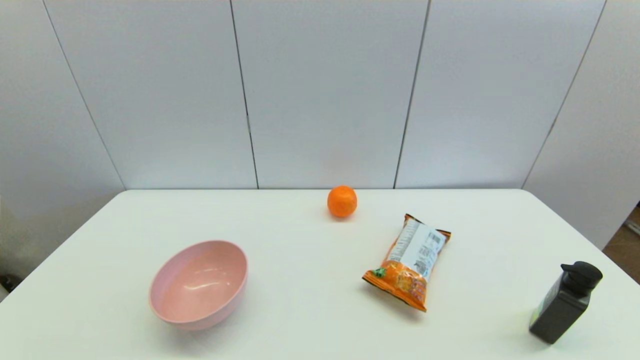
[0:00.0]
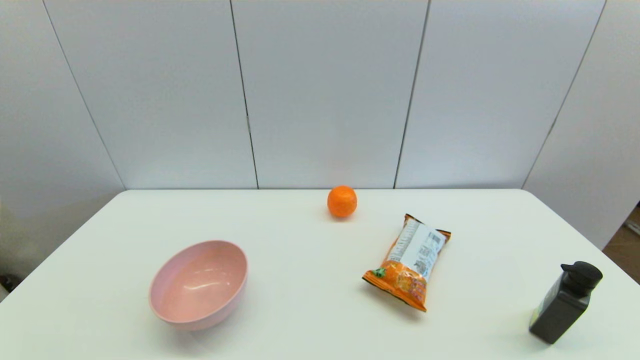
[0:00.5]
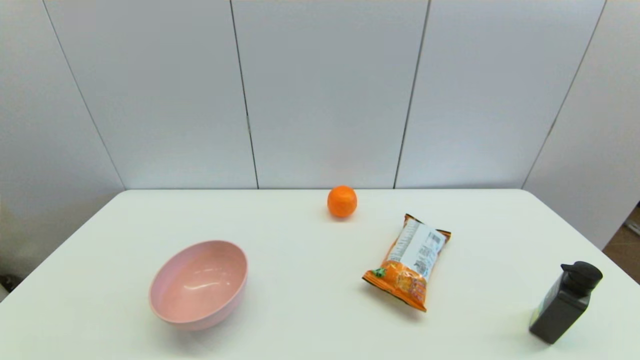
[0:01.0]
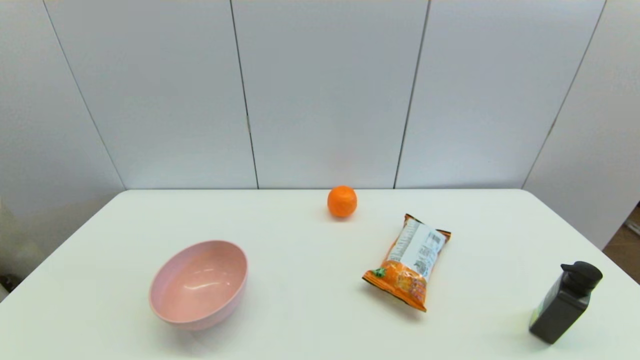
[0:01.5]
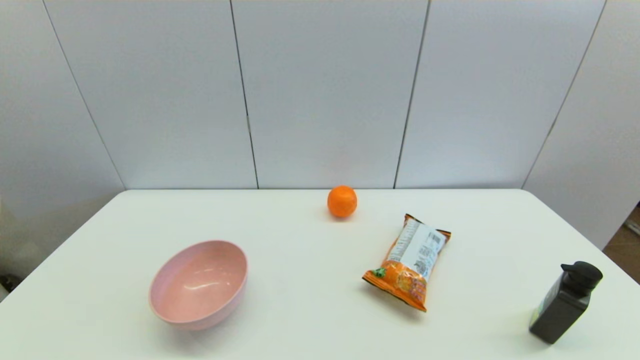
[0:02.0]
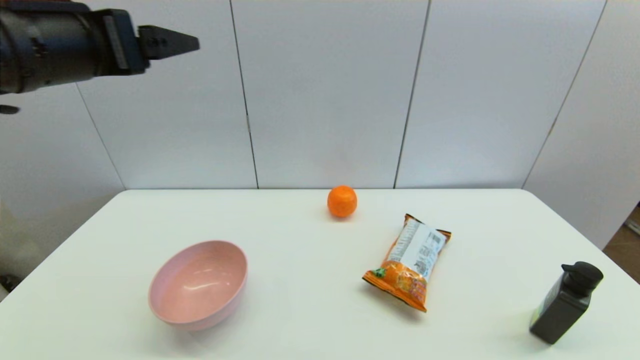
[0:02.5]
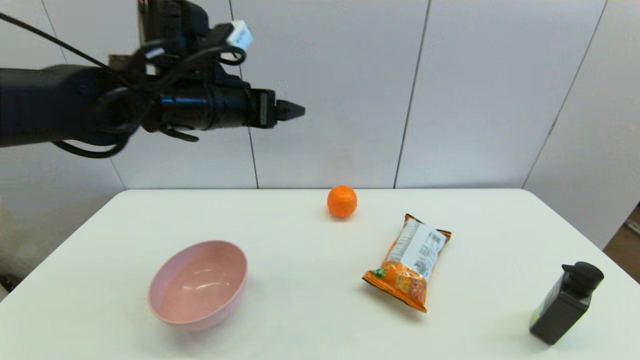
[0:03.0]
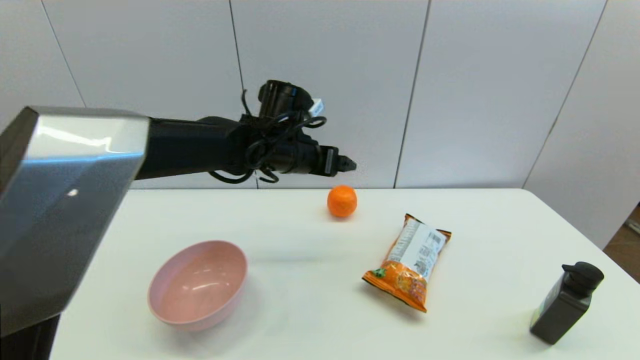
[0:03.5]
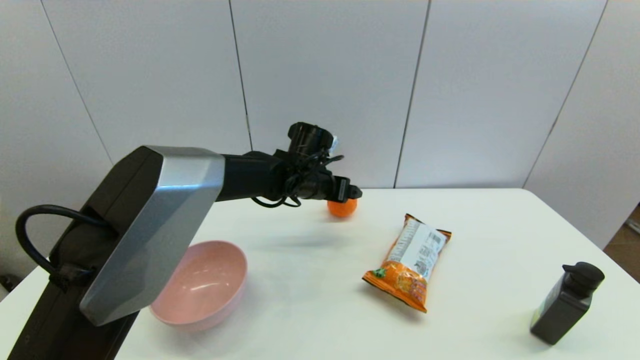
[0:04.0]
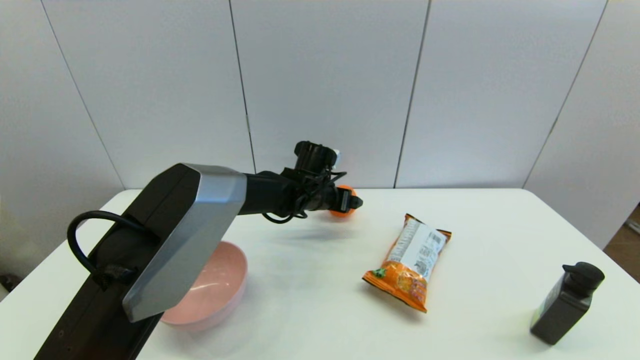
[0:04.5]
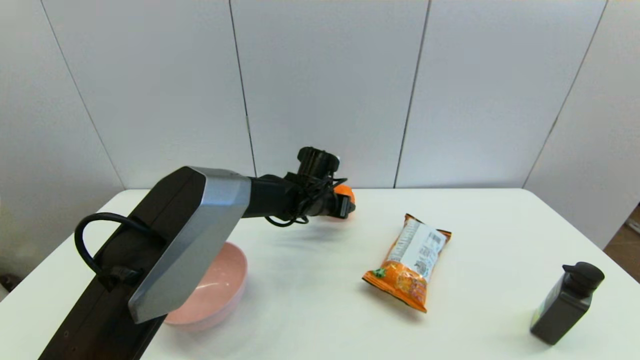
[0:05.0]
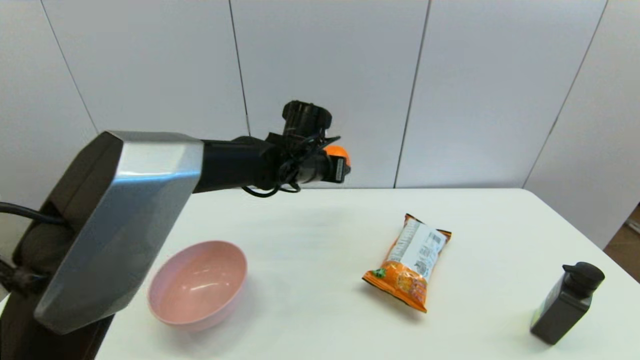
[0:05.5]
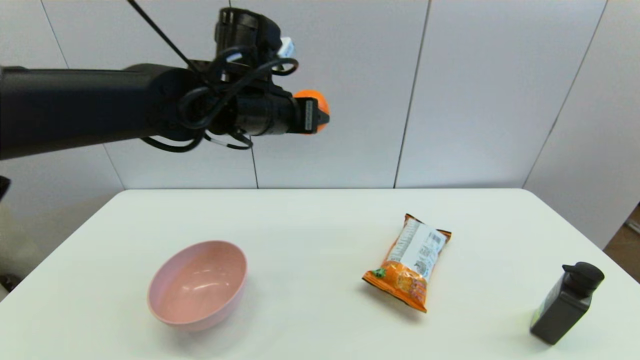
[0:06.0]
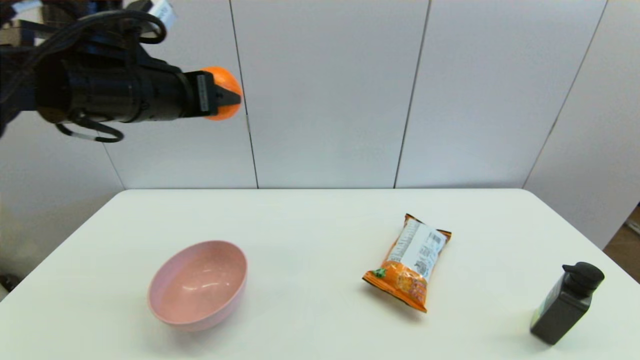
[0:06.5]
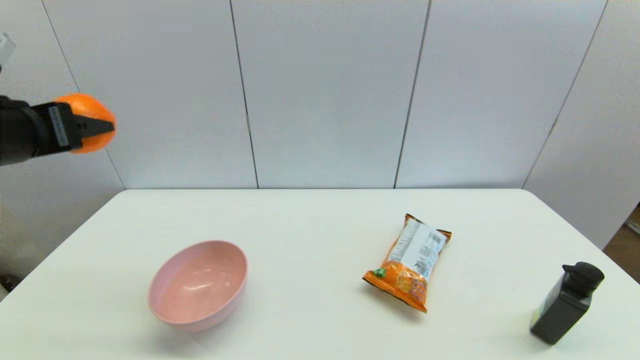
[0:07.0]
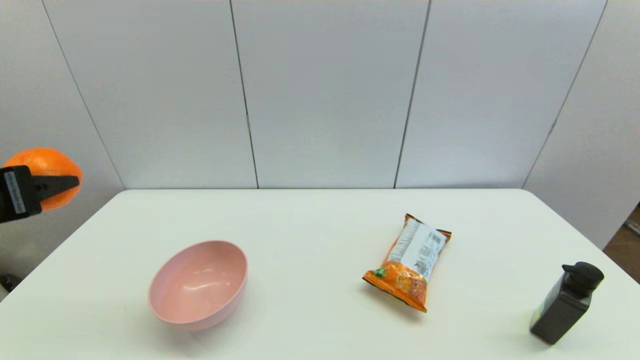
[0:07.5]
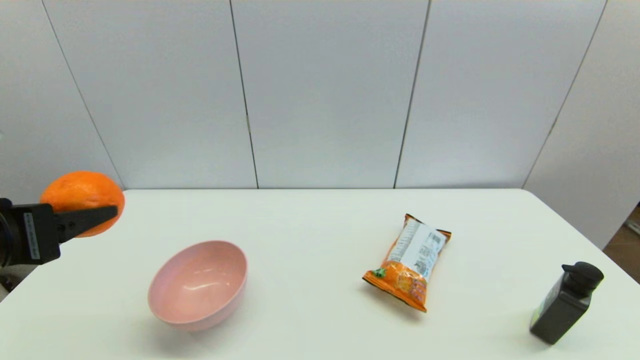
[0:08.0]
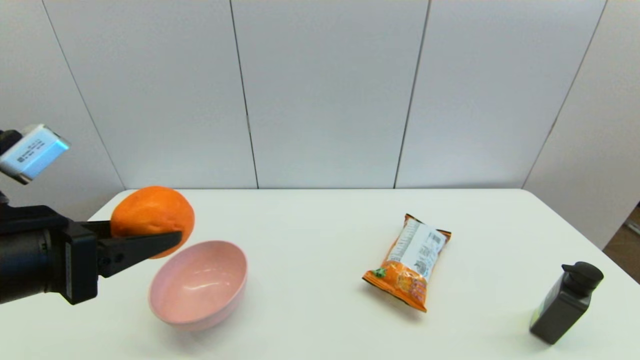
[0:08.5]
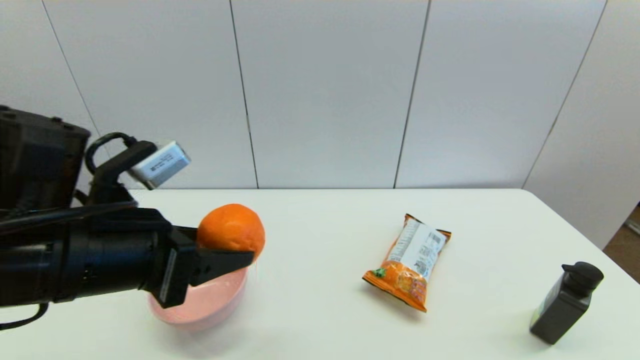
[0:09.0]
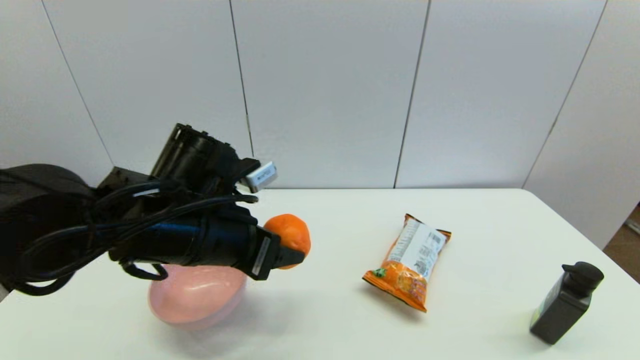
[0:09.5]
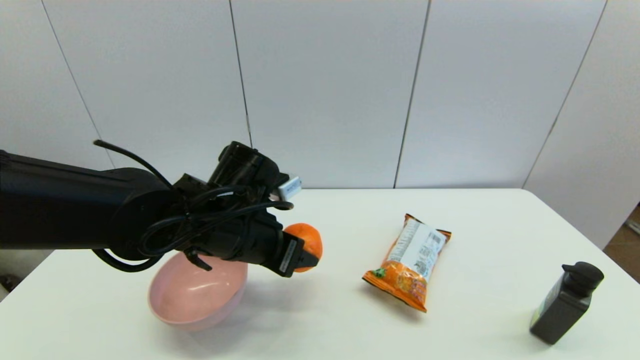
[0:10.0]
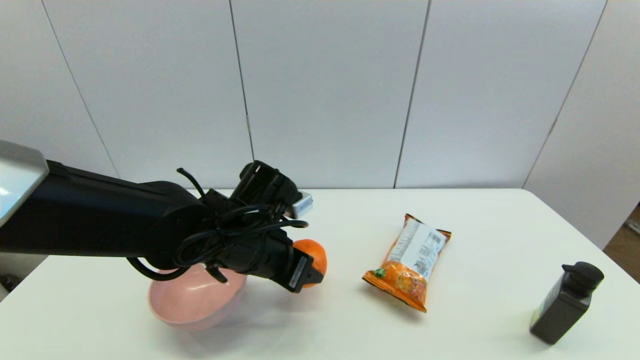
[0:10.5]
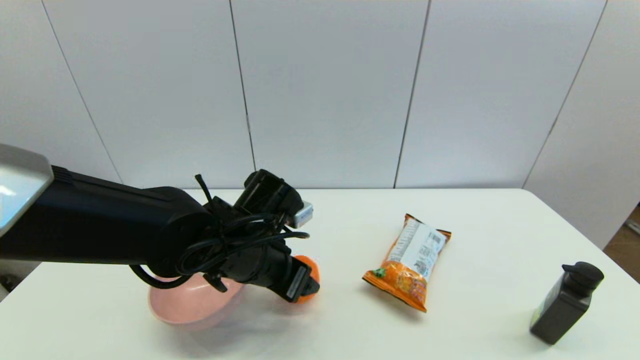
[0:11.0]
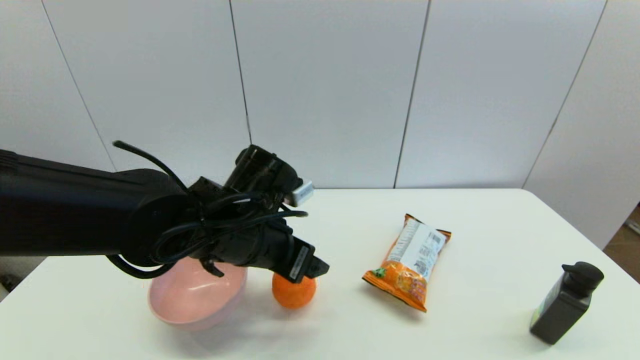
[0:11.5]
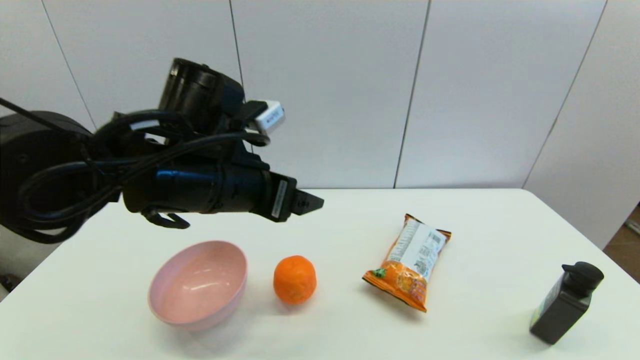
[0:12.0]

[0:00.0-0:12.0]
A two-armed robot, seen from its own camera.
Step, 0:02.5 to 0:05.0: Grasp the orange with left gripper.
Step, 0:05.5 to 0:11.0: Place the orange on the table with left gripper.
0:02.0 to 0:04.0: The left gripper shifts some 50 cm forward, to the right and downward.
0:04.0 to 0:06.0: The left gripper goes roughly 20 cm upward, backward and to the left, and closes.
0:06.0 to 0:08.0: The left gripper is displaced backward and to the left by roughly 30 cm.
0:08.0 to 0:10.0: The left gripper shifts some 25 cm to the right, forward and downward.
0:10.0 to 0:12.0: The left gripper heads upward, covering approximately 10 cm, and opens.

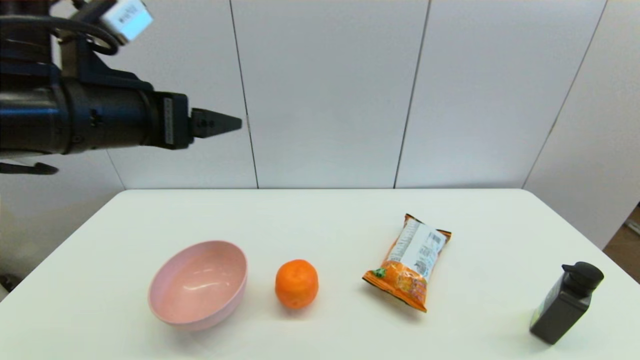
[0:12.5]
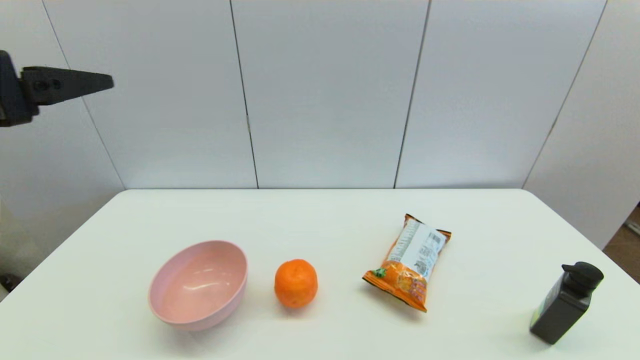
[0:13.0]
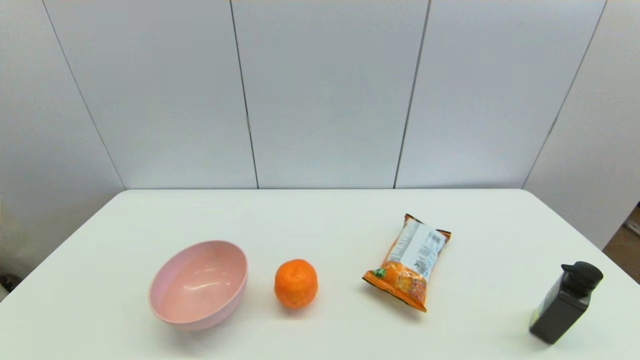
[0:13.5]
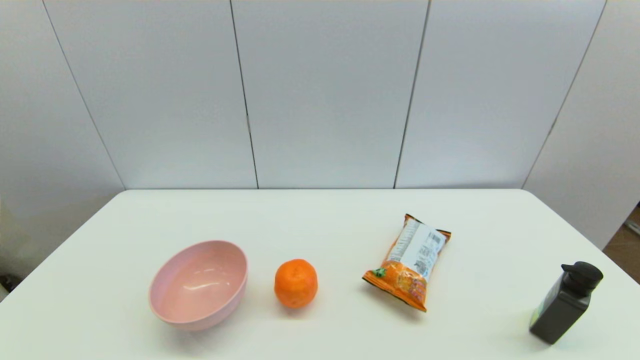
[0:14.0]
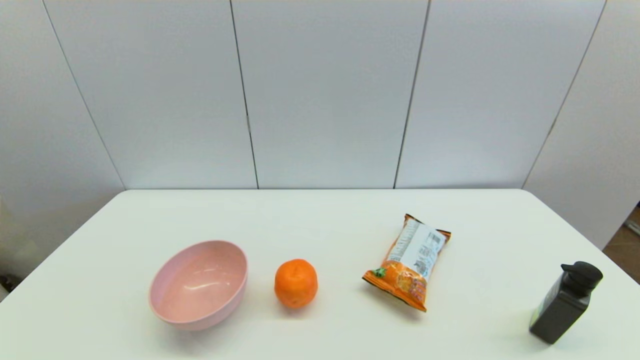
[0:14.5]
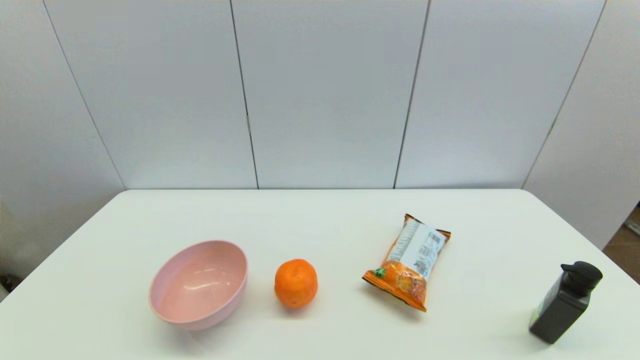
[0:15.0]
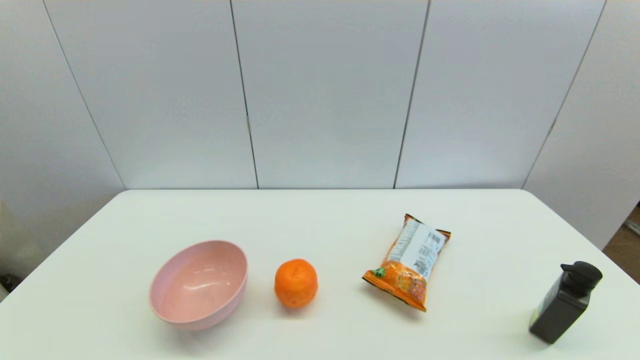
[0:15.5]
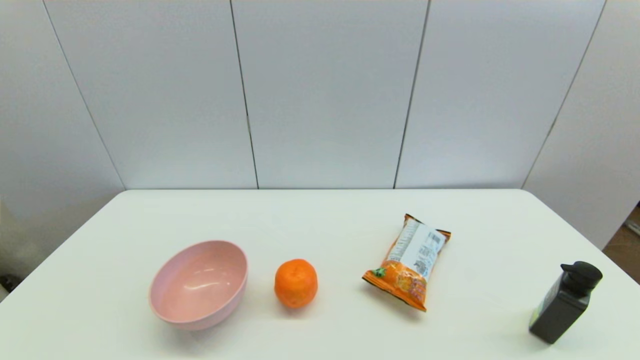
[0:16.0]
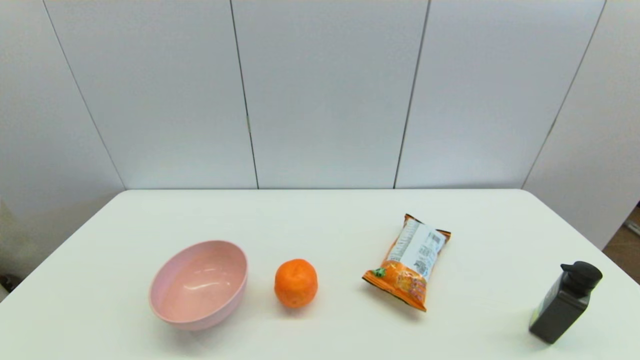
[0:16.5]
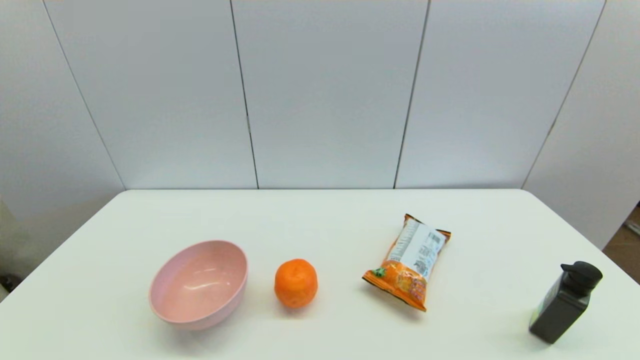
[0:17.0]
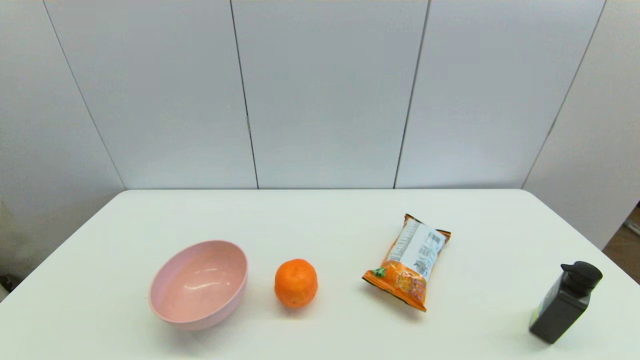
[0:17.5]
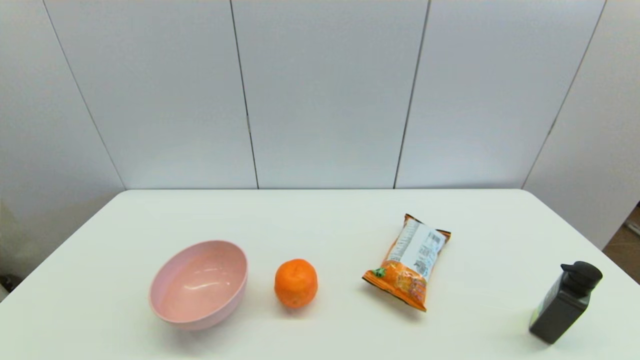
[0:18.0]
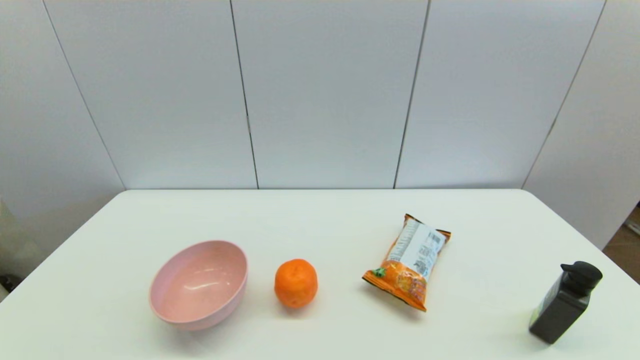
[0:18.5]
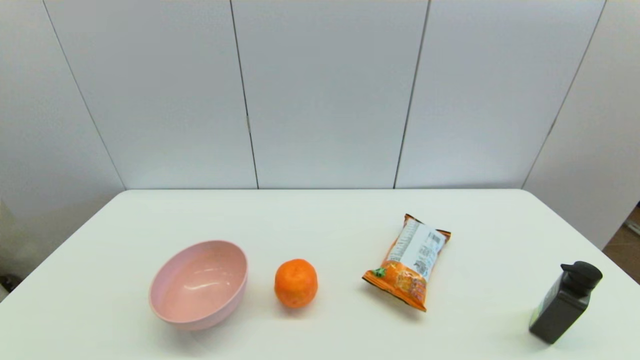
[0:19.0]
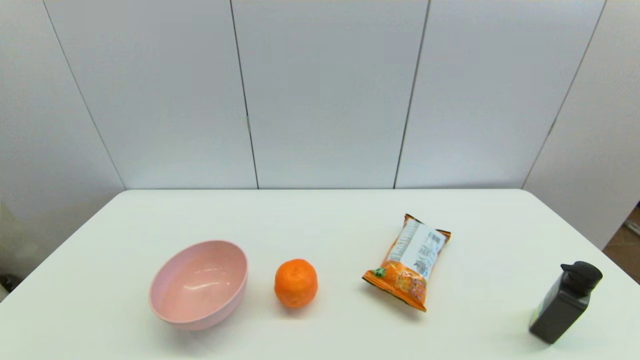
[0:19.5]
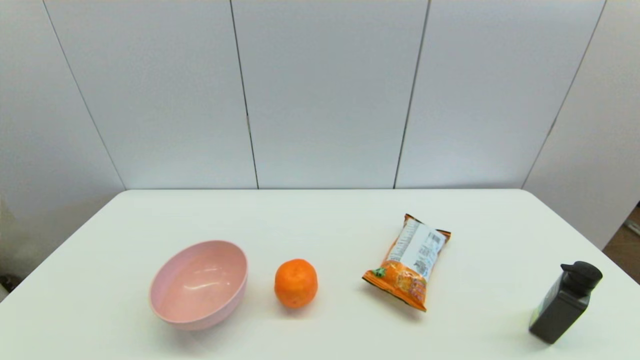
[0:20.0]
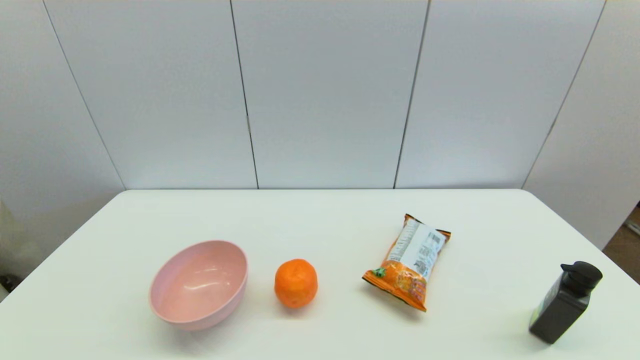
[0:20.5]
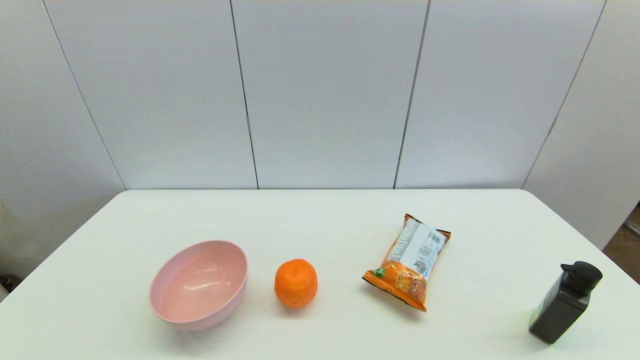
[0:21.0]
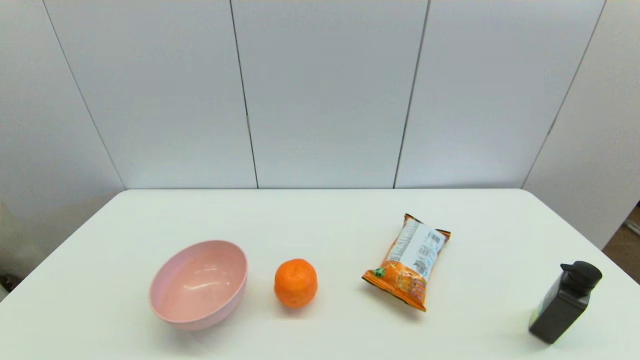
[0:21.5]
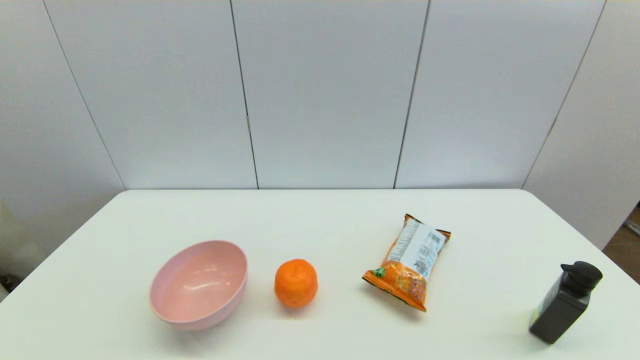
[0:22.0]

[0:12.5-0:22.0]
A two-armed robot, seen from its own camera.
0:12.5 to 0:14.5: The left gripper heads backward, covering approximately 25 cm.
0:20.0 to 0:22.0: Neither gripper changes place.
